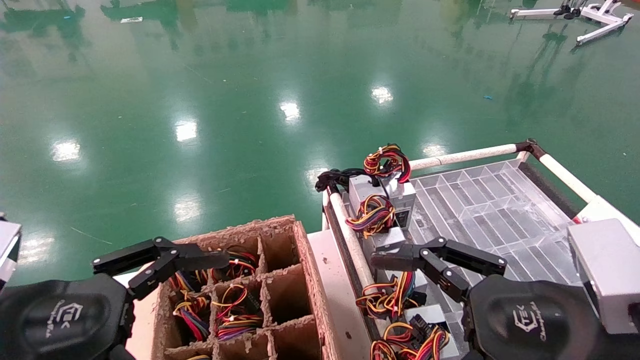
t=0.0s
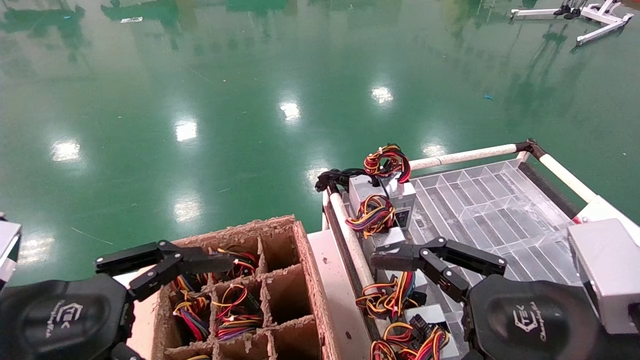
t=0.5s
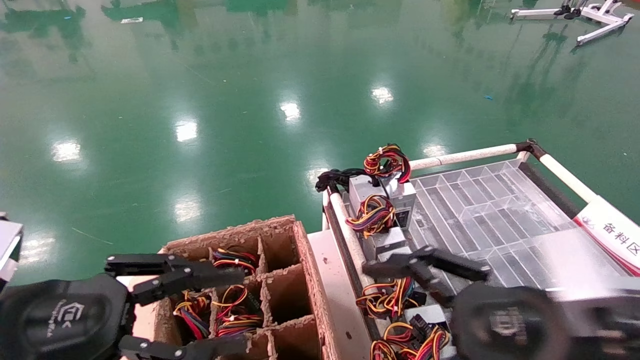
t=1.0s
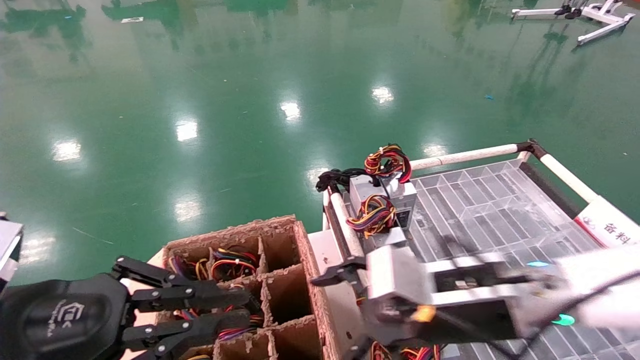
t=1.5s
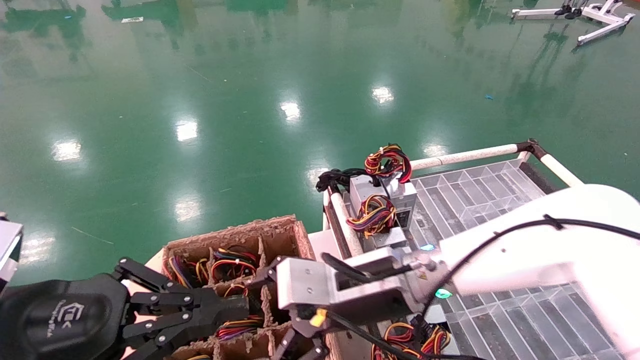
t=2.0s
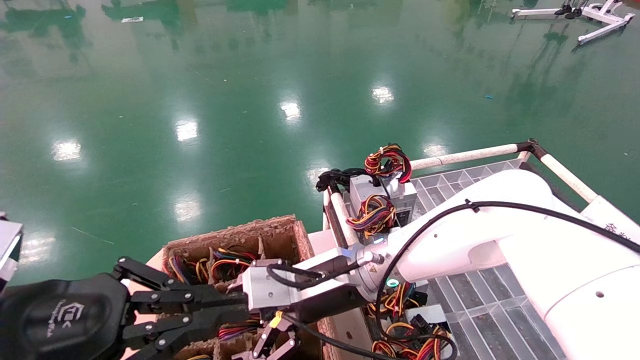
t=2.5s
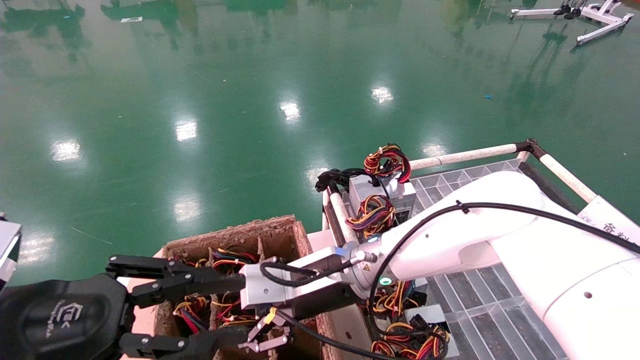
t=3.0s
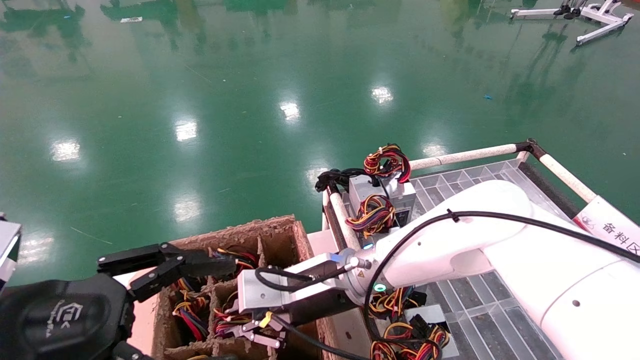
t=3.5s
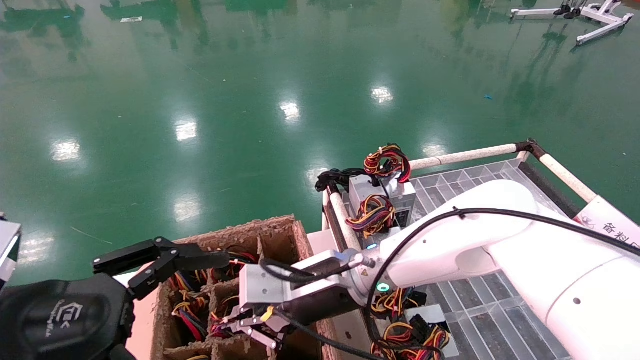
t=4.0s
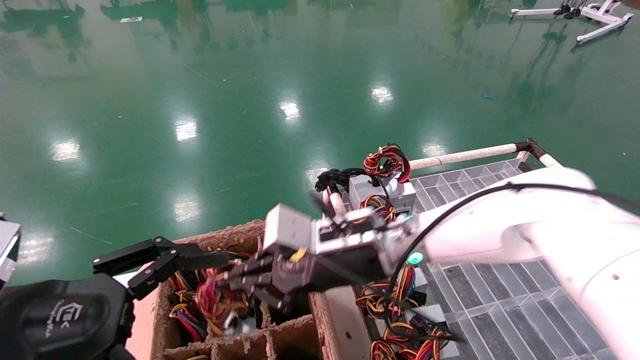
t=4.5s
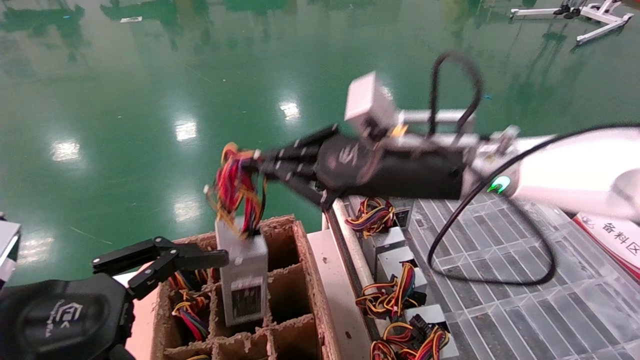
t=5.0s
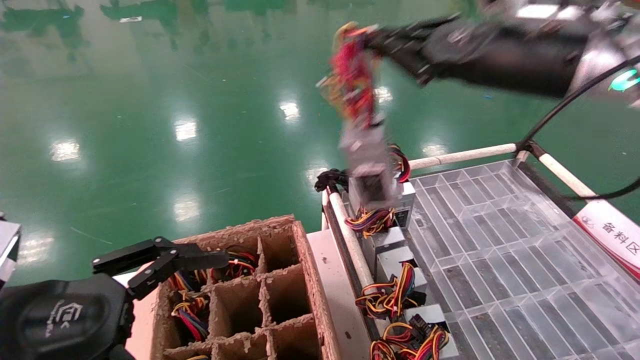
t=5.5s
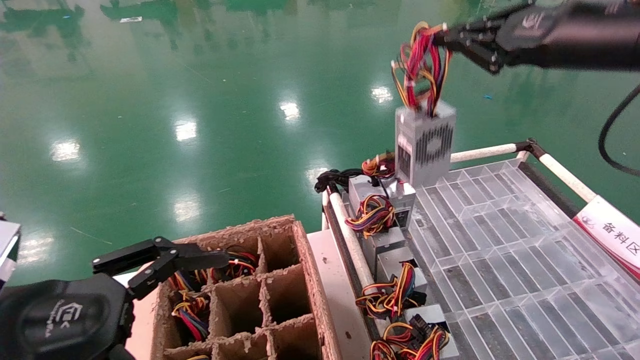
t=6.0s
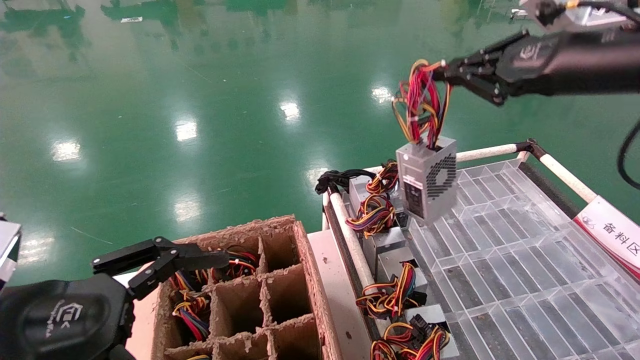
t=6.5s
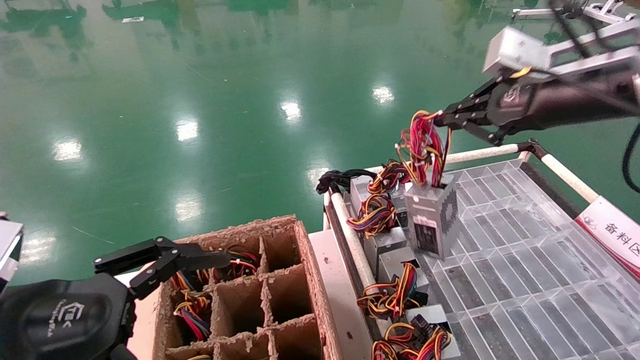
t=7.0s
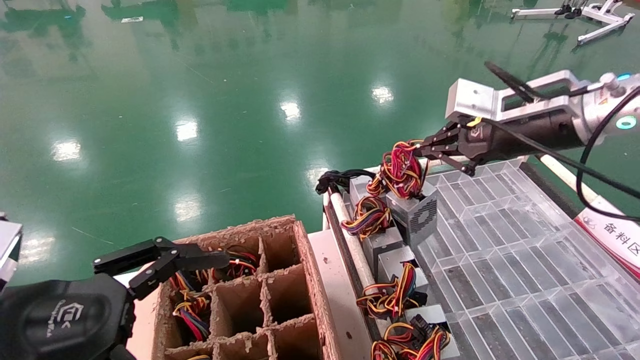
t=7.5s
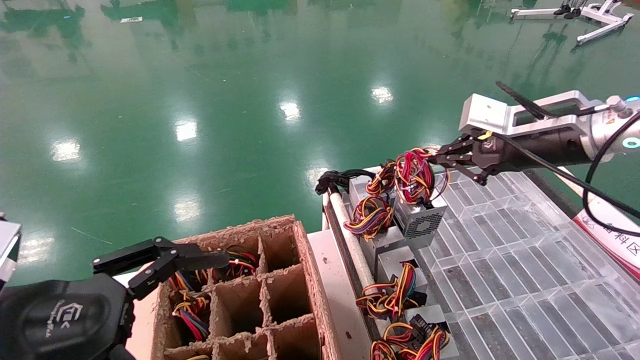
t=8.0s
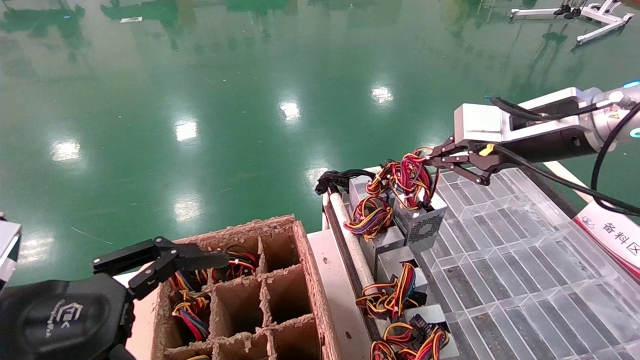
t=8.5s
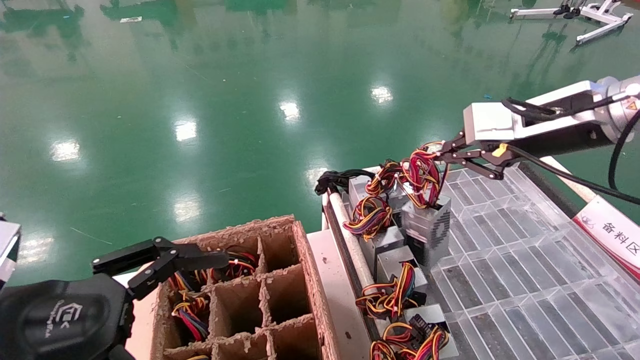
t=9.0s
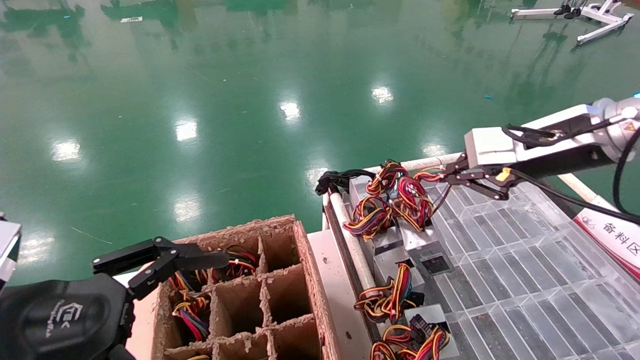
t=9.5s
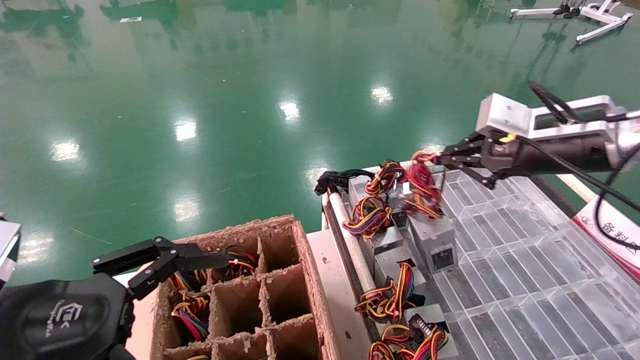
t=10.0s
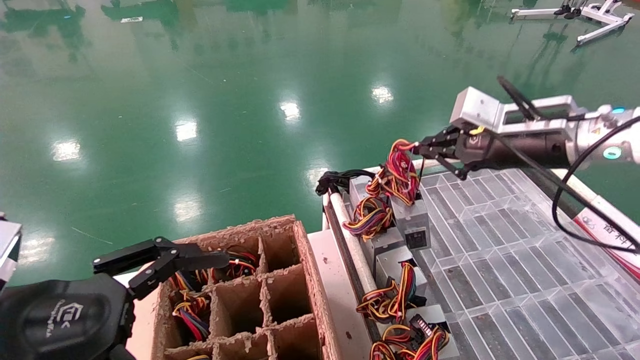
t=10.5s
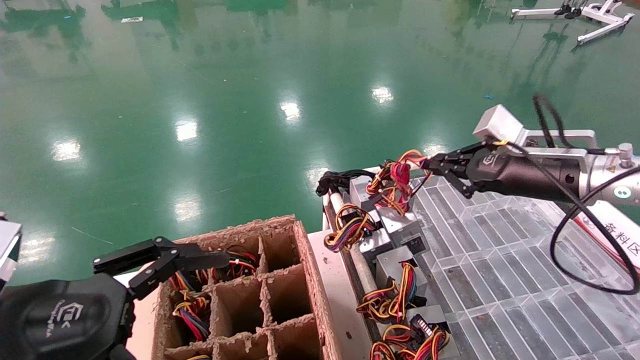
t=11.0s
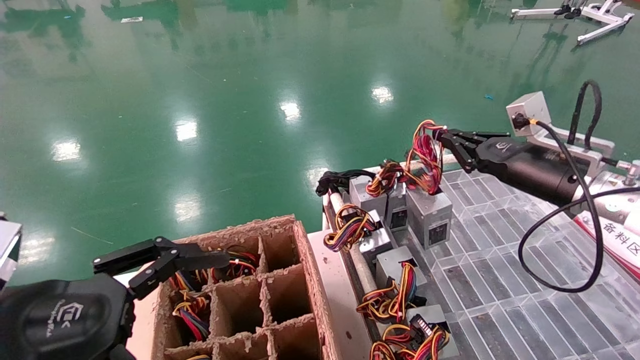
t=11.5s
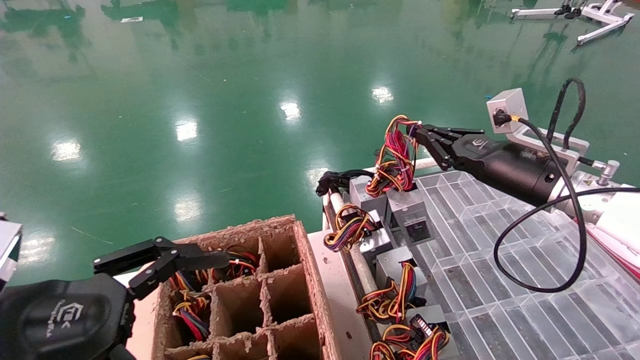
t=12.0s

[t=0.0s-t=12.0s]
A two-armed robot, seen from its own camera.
Step, t=1.0s to t=3.5s: Grab and lift the power supply from the large box.
t=0.0s to t=2.0s: The right gripper heads to the left and forward, covering about 20 cm; the left gripper closes its fingers.
t=2.0s to t=4.0s: The left gripper opens up. The right gripper changes place by approximately 5 cm, and closes up.
t=4.0s to t=6.0s: The right gripper heads to the right and upward, covering roughly 40 cm.
t=6.0s to t=8.0s: The right gripper goes roughly 10 cm downward and forward.
t=8.0s to t=10.0s: The grippers stay close to where they were, moving slightly.
t=10.0s to t=12.0s: The right gripper moves downward, some 10 cm.

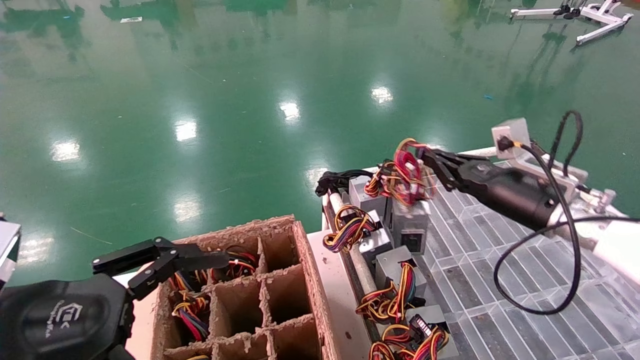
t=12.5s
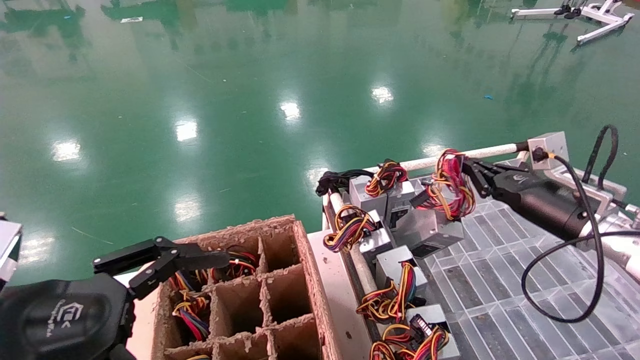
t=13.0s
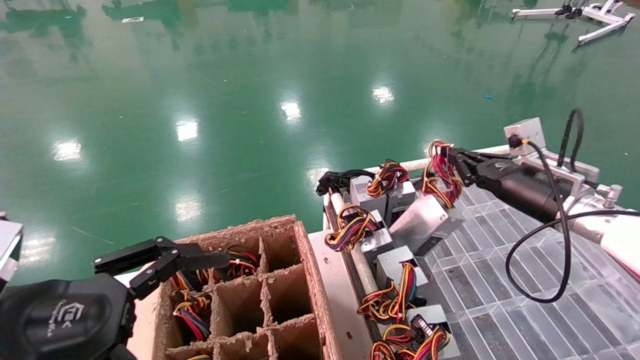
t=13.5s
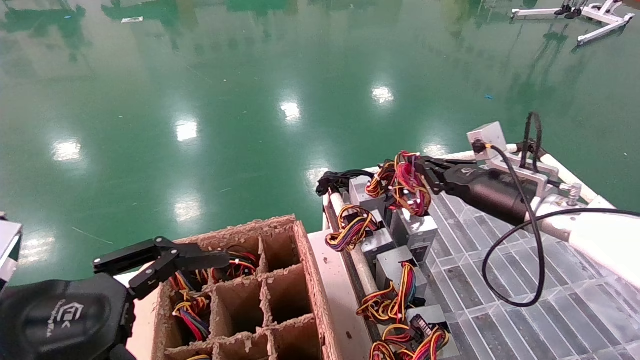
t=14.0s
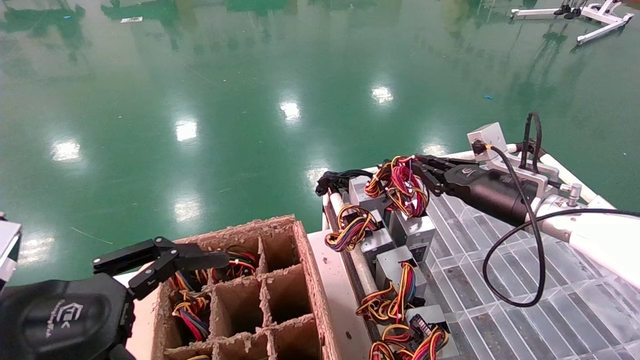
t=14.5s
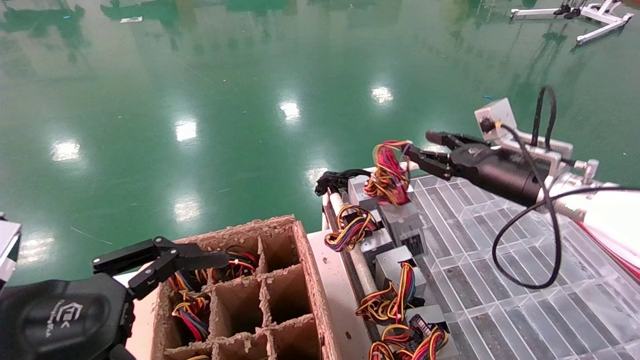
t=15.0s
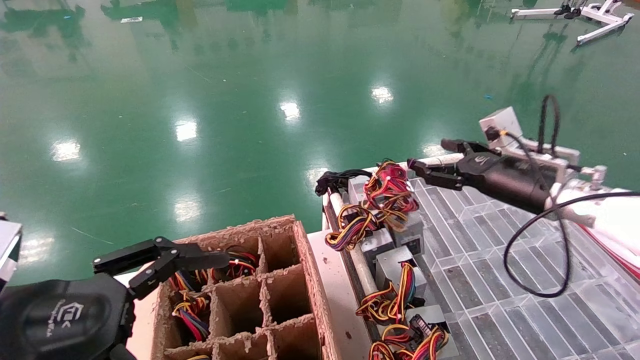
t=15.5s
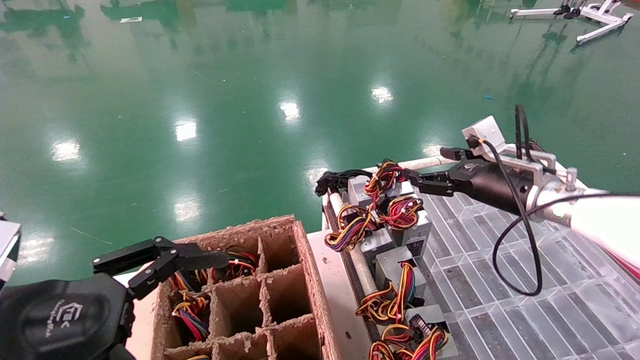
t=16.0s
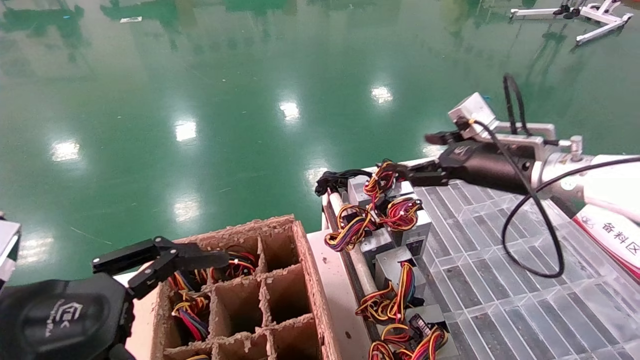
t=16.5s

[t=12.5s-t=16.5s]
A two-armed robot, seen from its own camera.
t=12.5s to t=14.5s: The grippers make only small movements.
t=14.5s to t=16.5s: The right gripper moves some 5 cm, and opens.
